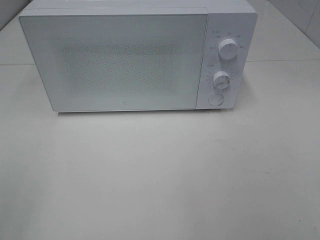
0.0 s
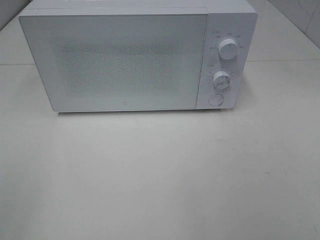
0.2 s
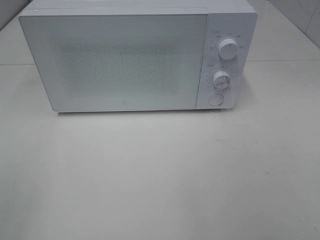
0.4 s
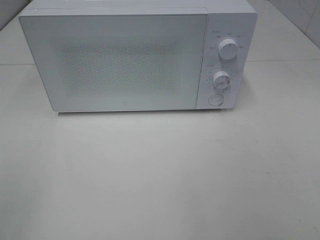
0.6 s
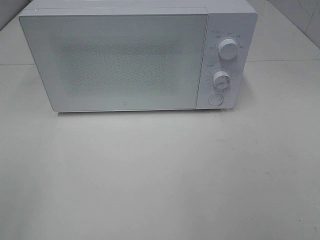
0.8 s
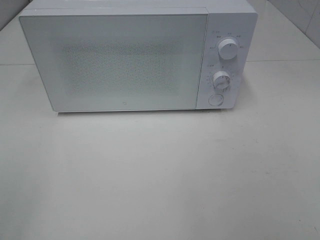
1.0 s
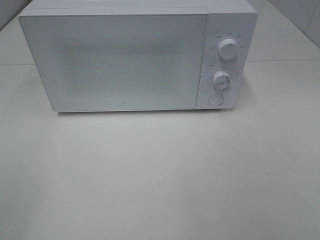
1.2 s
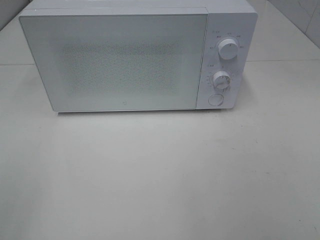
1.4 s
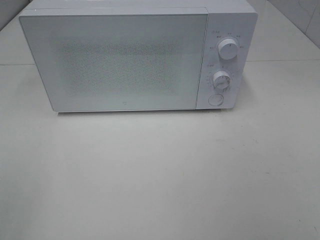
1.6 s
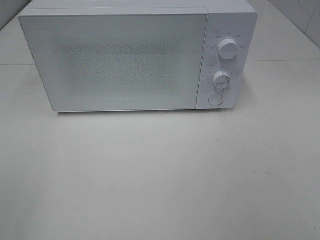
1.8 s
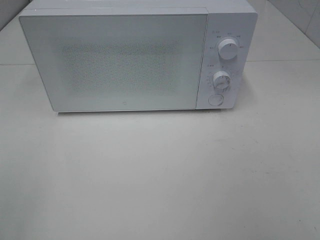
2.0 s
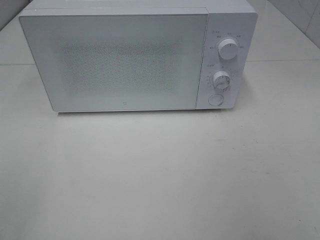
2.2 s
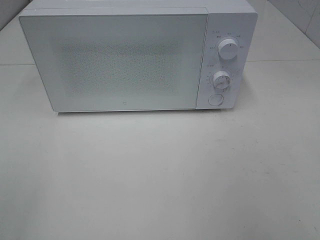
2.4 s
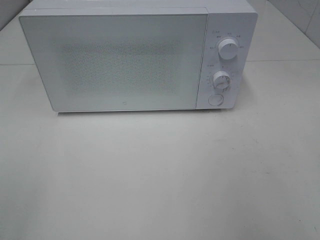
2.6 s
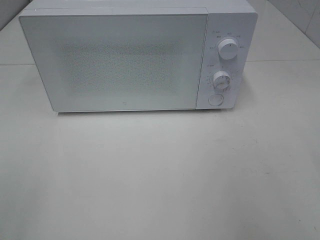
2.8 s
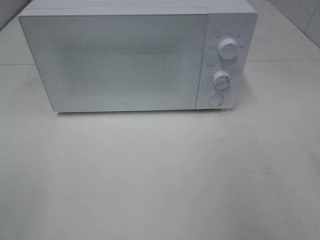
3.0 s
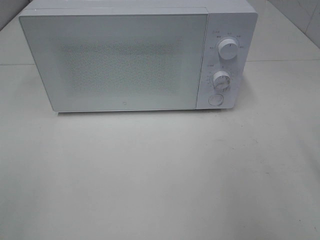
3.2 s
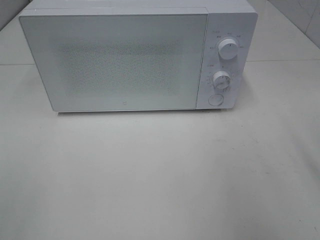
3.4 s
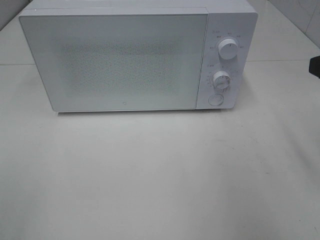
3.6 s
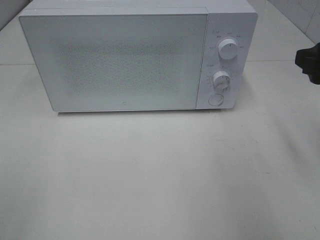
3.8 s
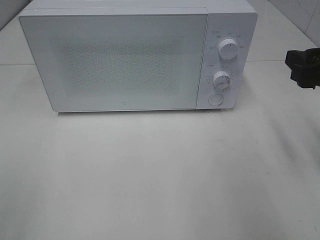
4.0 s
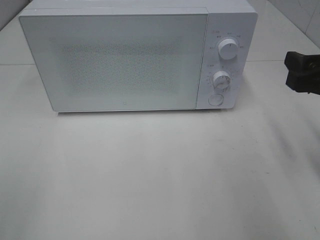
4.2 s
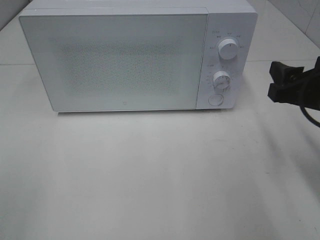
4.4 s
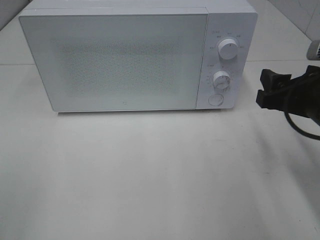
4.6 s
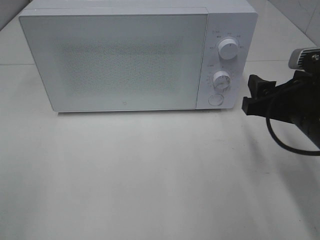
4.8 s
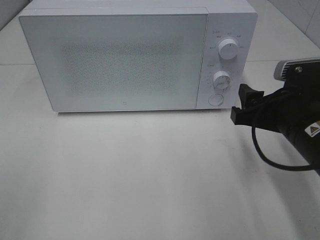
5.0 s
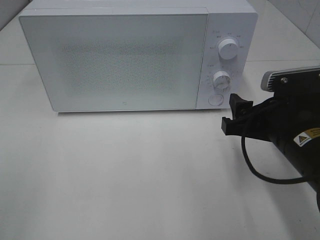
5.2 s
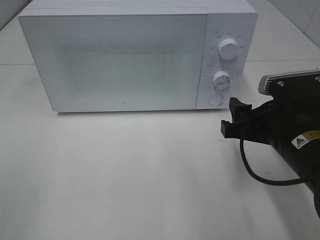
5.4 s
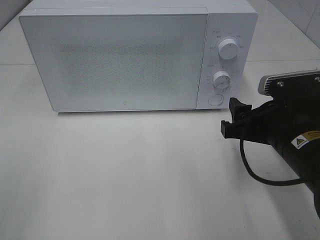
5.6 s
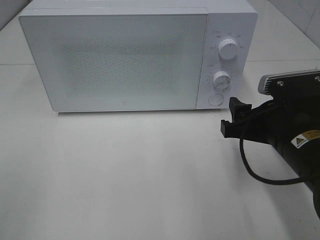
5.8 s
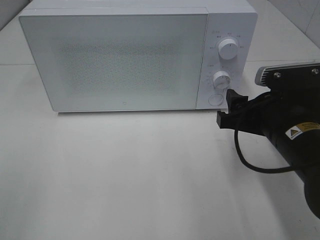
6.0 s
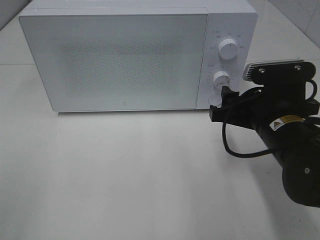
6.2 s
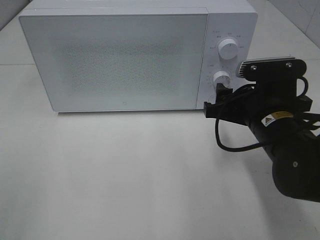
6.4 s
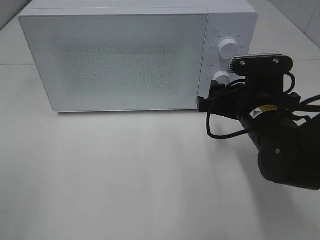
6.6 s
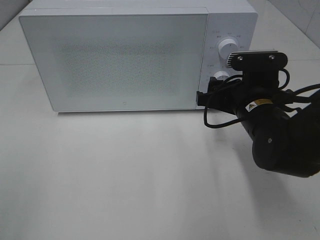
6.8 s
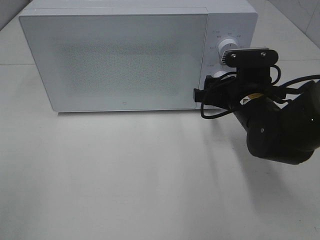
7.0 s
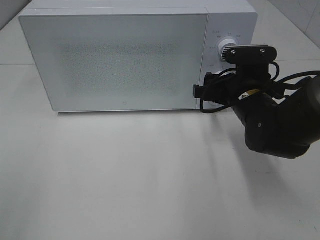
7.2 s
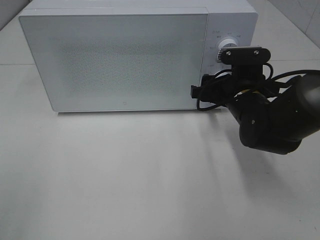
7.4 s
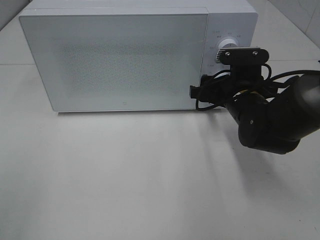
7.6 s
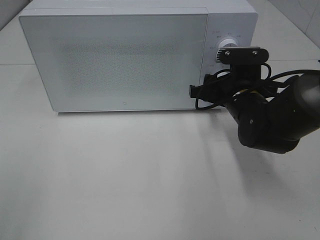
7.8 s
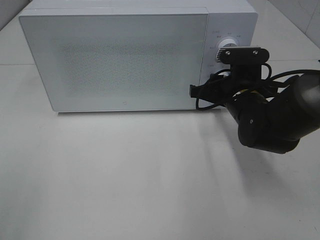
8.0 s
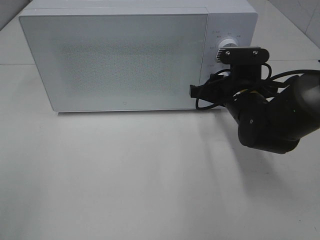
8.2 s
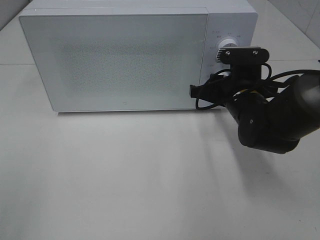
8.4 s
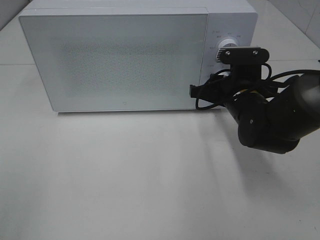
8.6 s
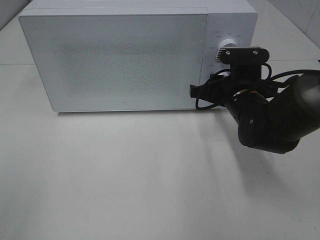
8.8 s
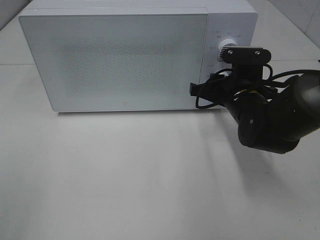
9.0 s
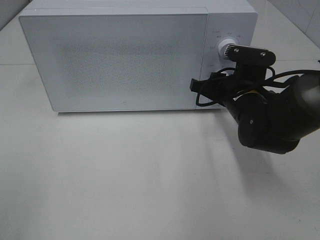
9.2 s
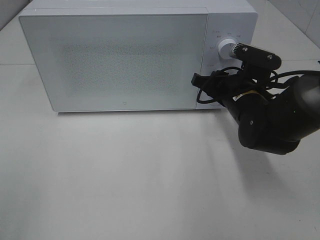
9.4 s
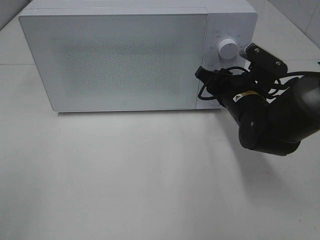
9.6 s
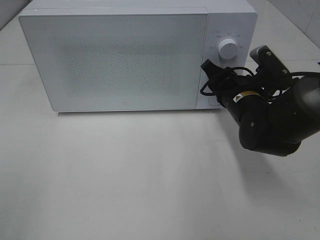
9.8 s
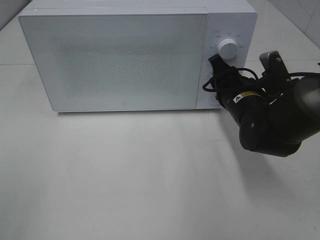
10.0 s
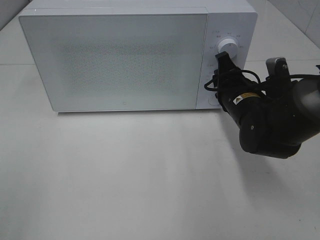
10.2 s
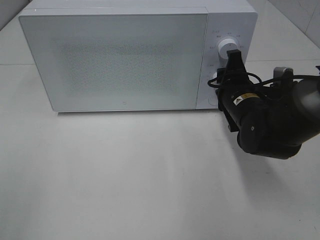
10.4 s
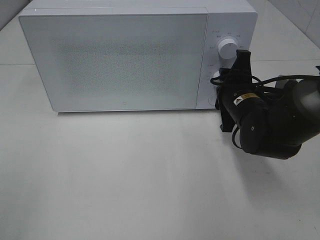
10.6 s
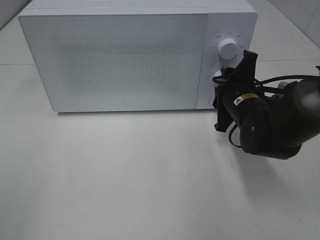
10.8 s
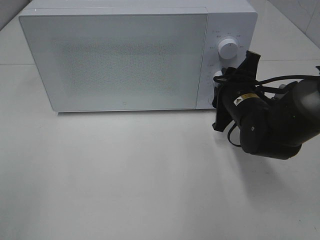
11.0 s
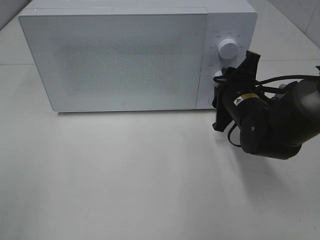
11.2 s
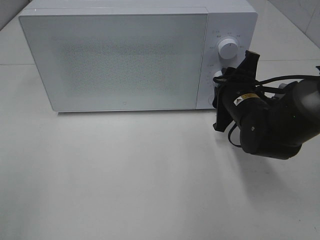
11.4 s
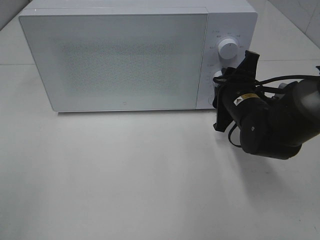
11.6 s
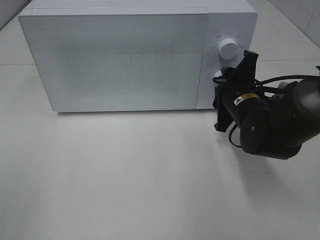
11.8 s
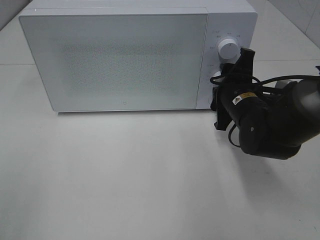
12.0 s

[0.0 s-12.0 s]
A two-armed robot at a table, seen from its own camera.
Task of the whole recording: Heat Sandwich.
3.0 to 4.4 s: The right gripper moves downward and forward, some 15 cm.
4.4 to 6.0 s: The right gripper goes approximately 5 cm to the left.
6.0 to 7.6 s: The right gripper is displaced forward by approximately 10 cm.
7.6 to 9.0 s: The right gripper closes its fingers.

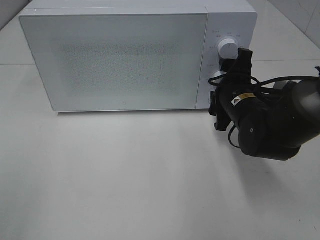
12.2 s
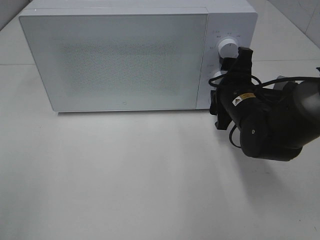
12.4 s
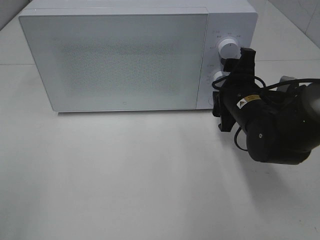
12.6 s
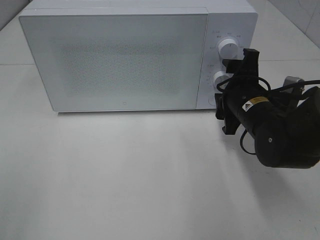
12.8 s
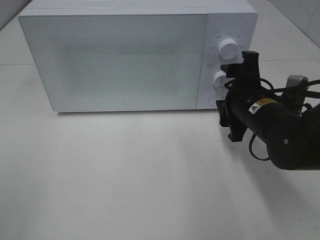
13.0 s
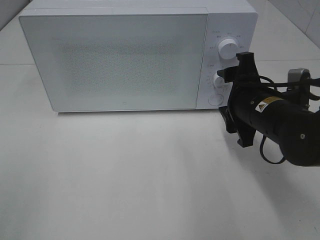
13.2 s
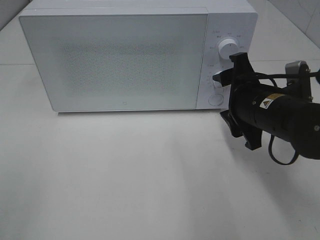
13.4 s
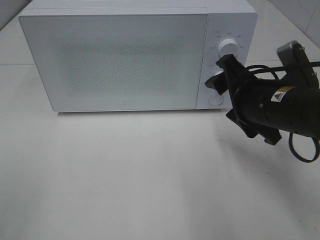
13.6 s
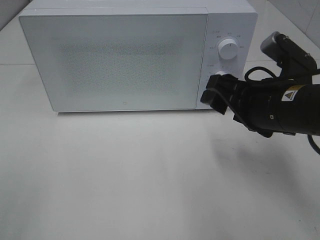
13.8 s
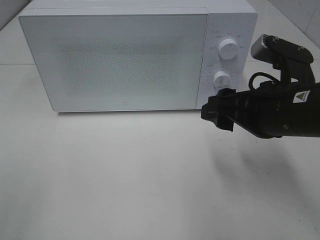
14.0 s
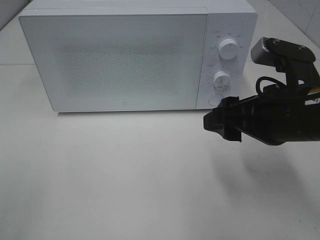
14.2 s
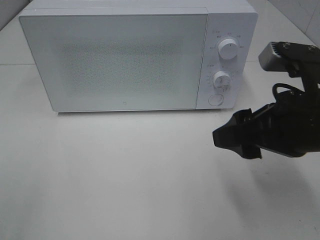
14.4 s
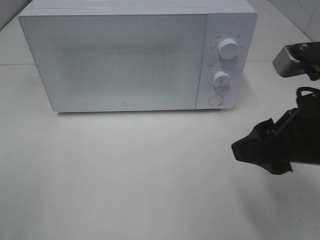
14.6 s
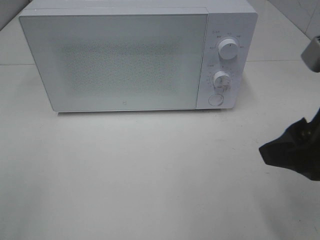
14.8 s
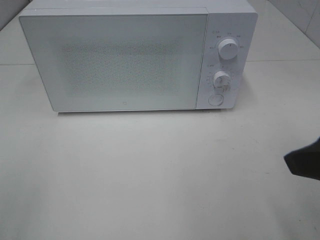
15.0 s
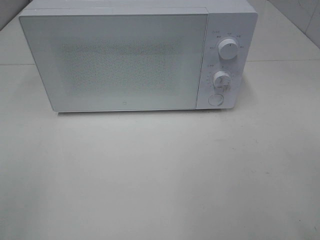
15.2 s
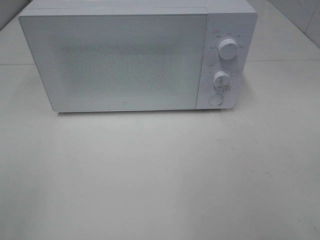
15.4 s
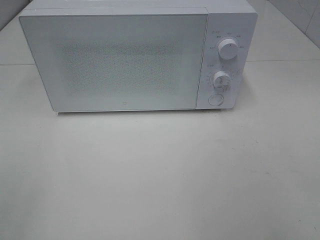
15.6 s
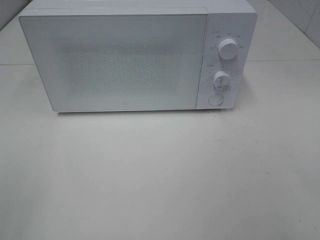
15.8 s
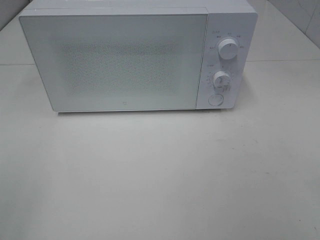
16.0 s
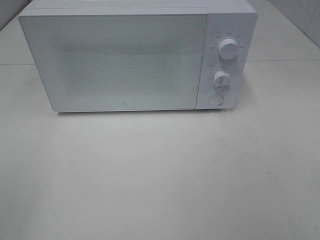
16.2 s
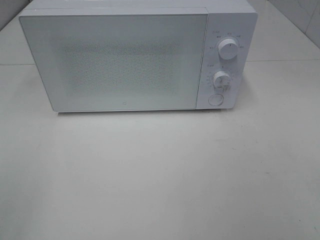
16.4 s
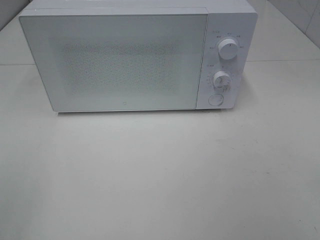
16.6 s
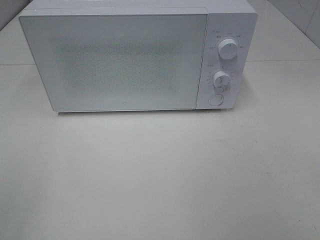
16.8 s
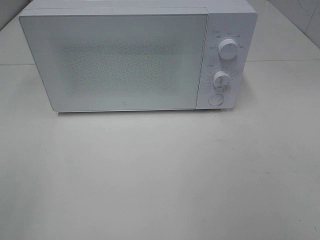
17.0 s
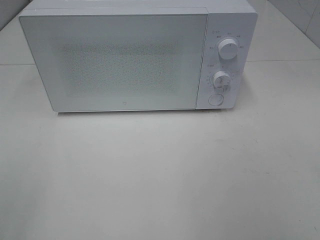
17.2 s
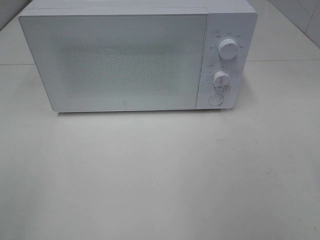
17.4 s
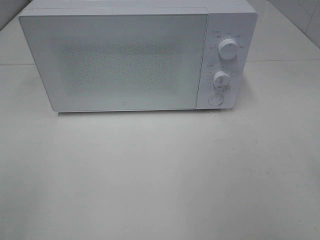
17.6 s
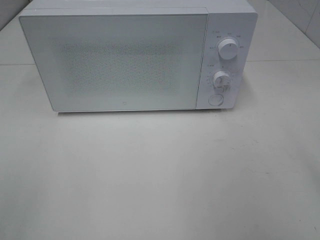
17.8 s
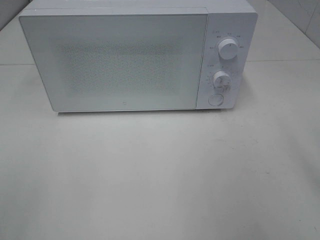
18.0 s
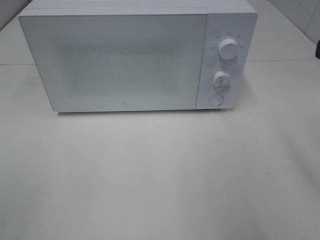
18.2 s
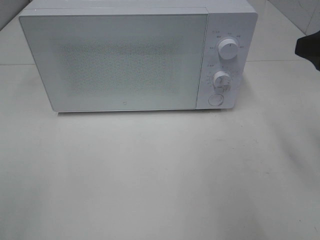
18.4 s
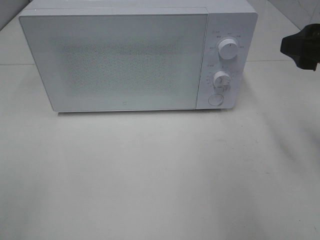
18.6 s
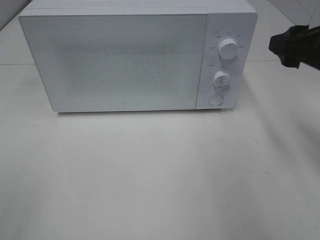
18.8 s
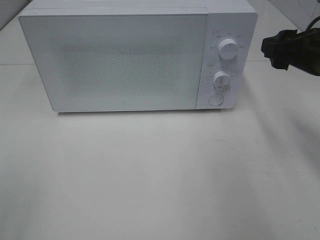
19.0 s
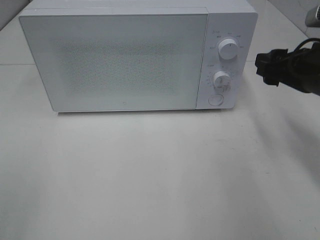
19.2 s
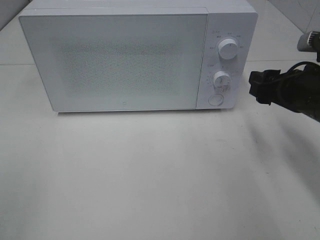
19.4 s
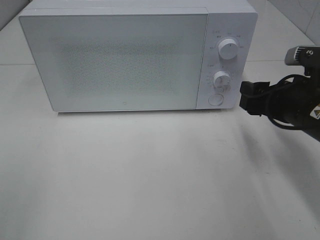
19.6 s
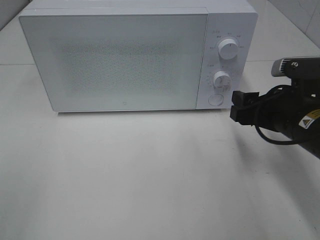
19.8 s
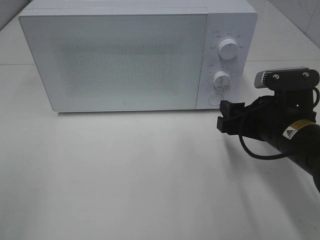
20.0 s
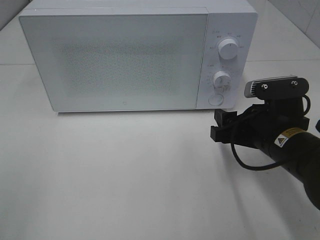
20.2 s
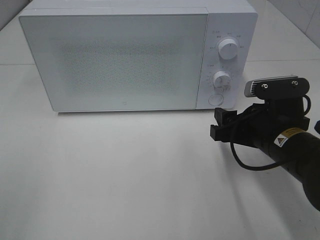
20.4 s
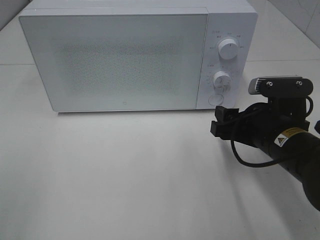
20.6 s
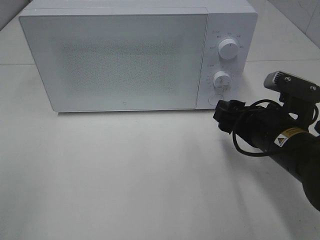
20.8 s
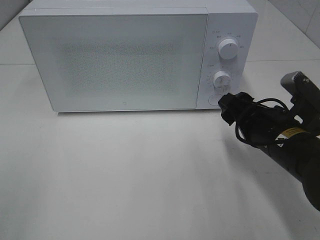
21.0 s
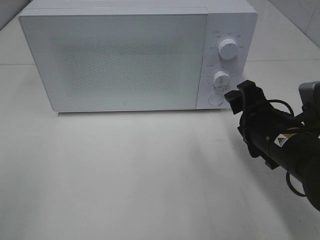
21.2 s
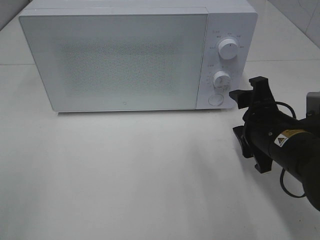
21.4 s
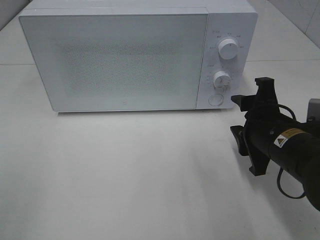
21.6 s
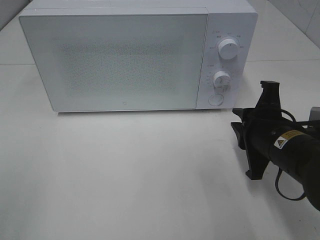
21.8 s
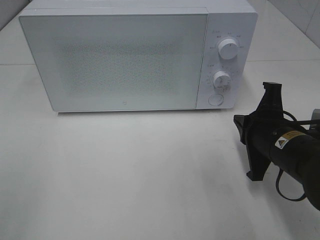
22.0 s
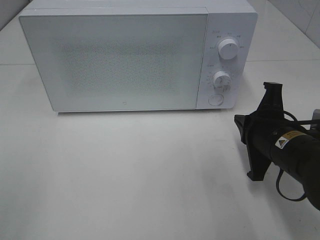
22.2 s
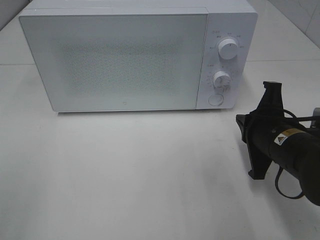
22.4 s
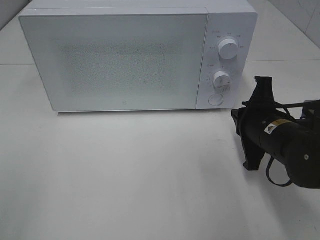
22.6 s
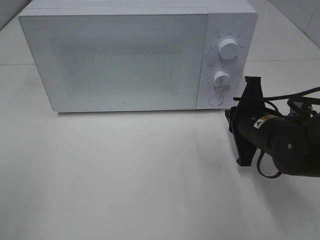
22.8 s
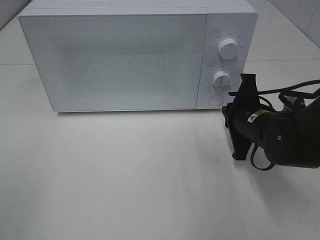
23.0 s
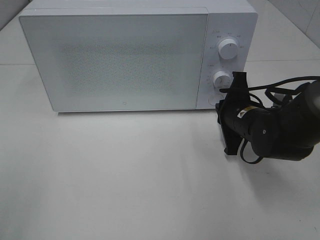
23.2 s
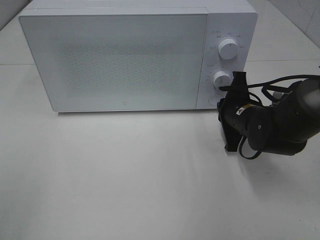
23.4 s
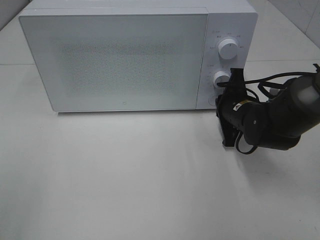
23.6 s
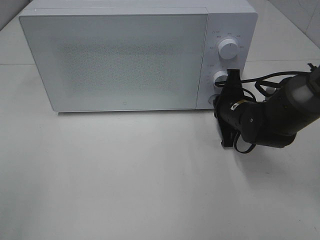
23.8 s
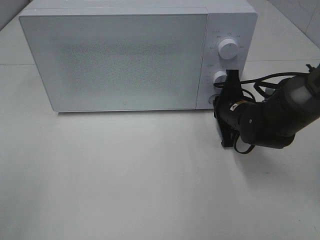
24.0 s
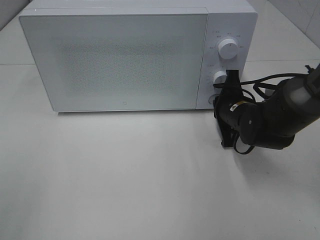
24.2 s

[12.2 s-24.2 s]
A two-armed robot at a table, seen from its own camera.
Task of the whole recording: Heat Sandwich.
12.2 to 13.8 s: The right gripper heads backward and upward, covering approximately 10 cm.
13.8 to 15.2 s: The right gripper moves backward, upward and to the right, about 20 cm.
18.2 to 19.8 s: The right gripper goes roughly 15 cm downward and forward.
21.2 to 22.6 s: The right gripper closes up.
22.6 to 24.2 s: The right gripper travels forward by roughly 10 cm.
